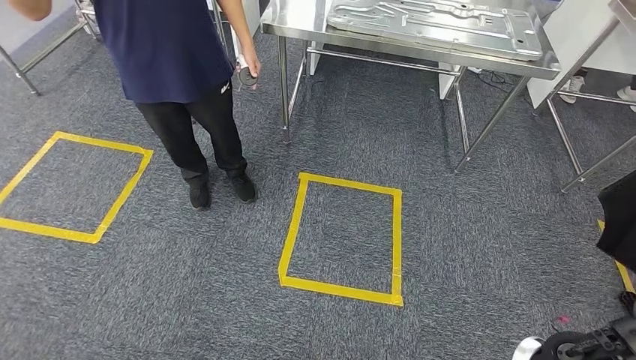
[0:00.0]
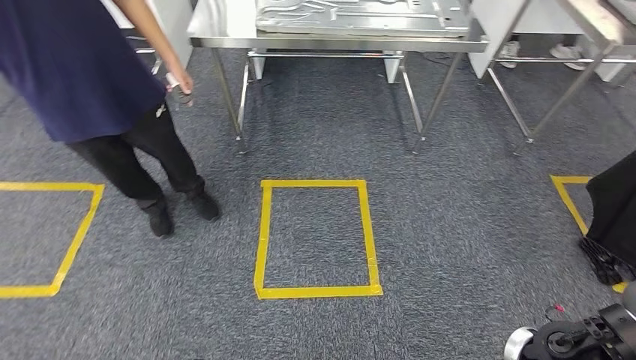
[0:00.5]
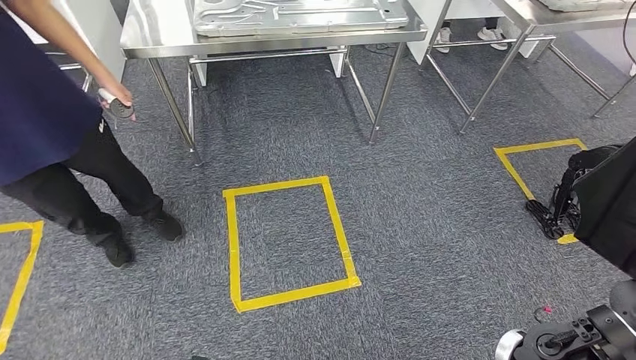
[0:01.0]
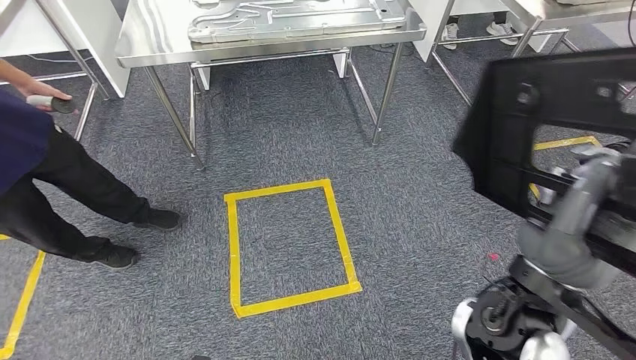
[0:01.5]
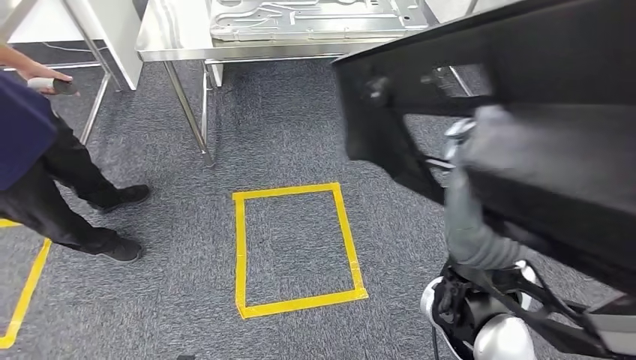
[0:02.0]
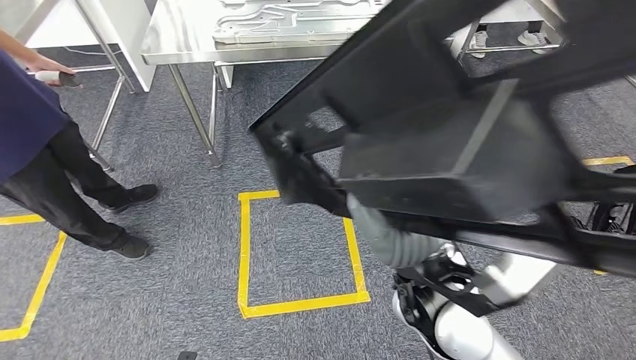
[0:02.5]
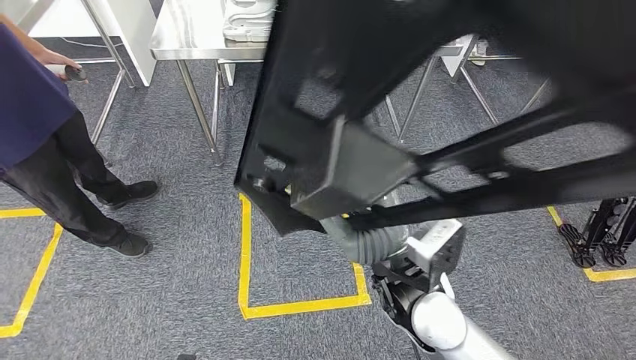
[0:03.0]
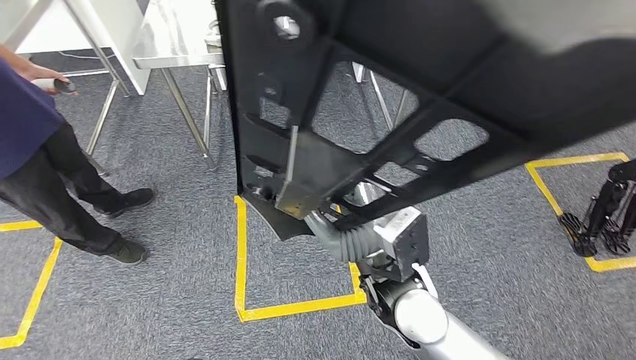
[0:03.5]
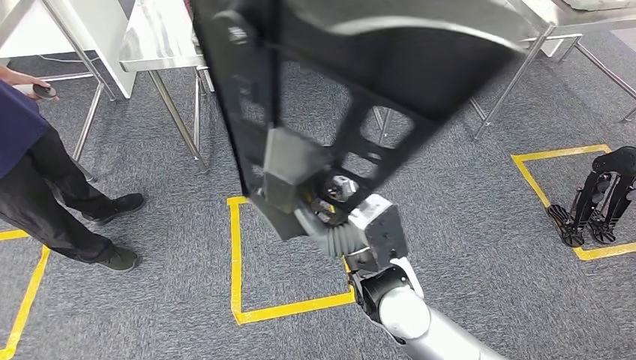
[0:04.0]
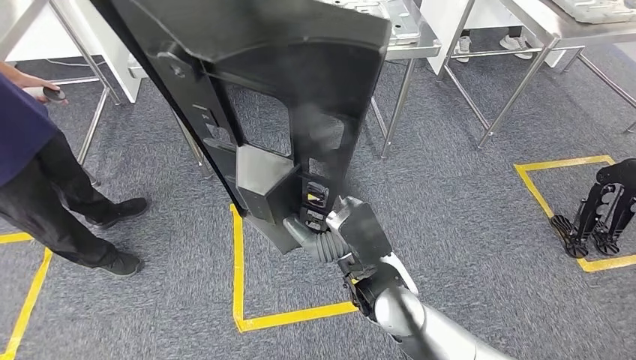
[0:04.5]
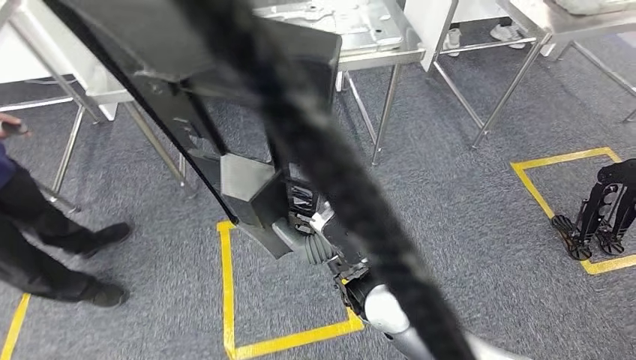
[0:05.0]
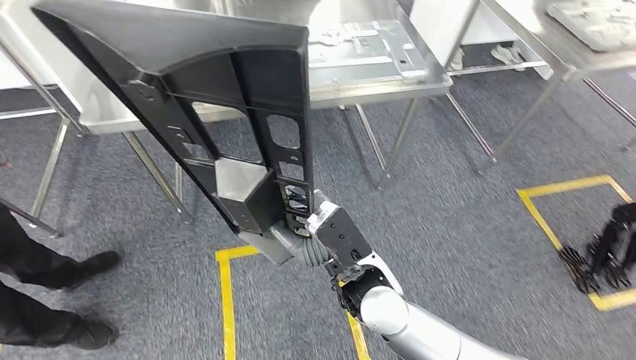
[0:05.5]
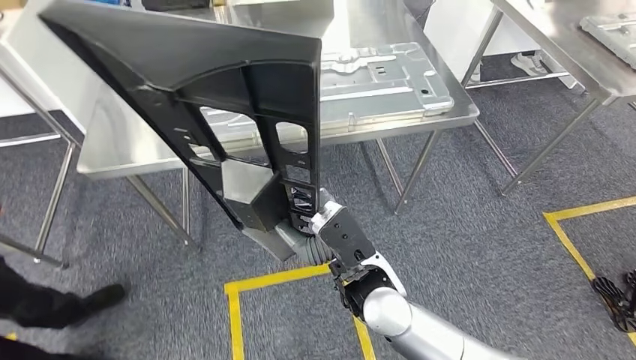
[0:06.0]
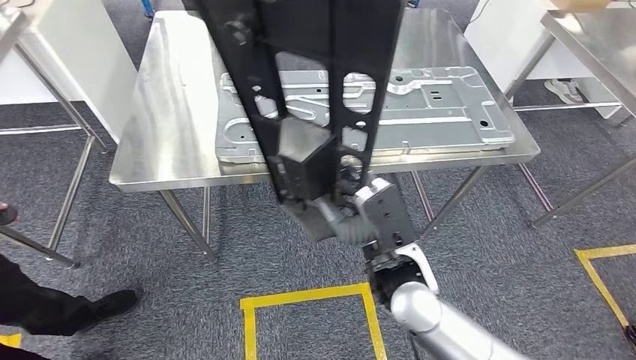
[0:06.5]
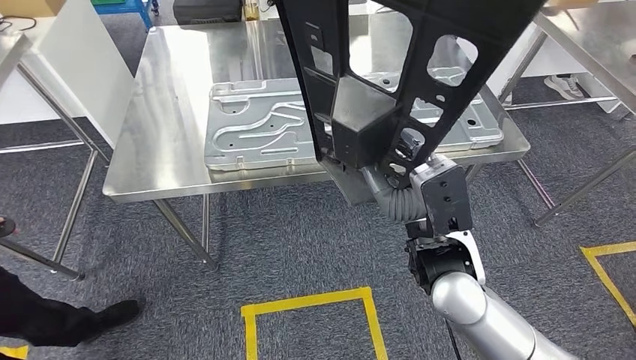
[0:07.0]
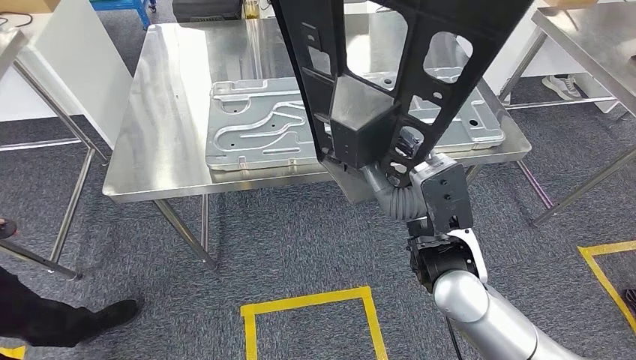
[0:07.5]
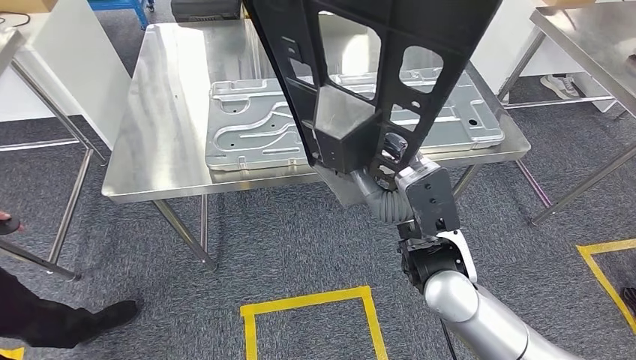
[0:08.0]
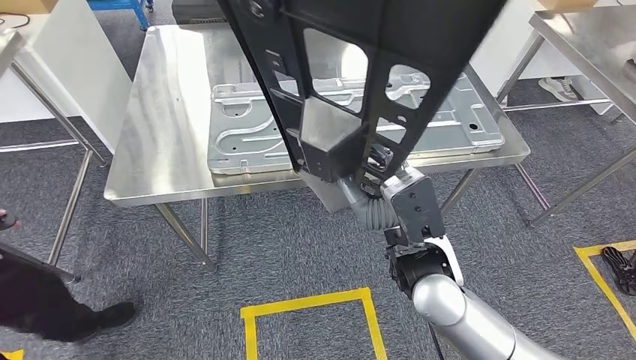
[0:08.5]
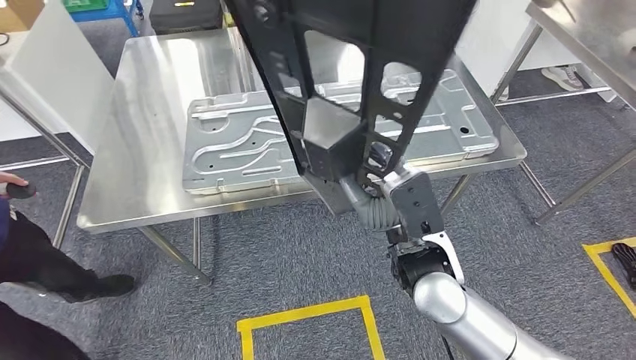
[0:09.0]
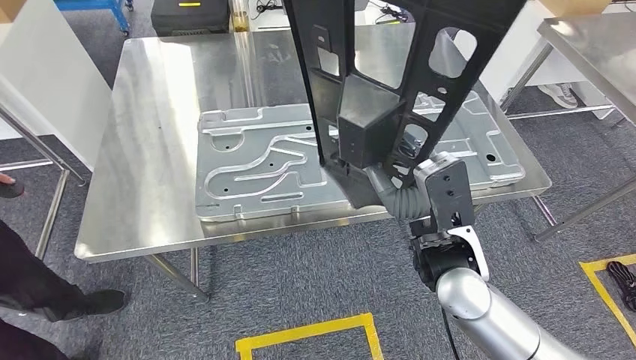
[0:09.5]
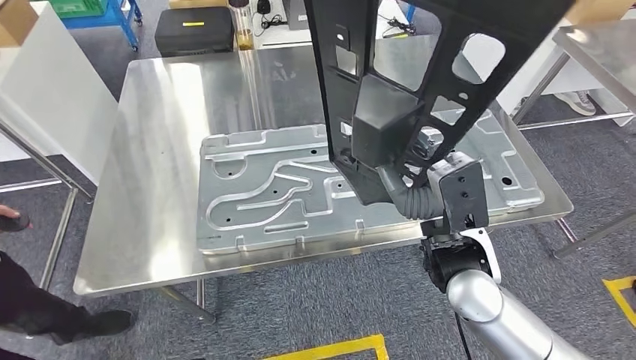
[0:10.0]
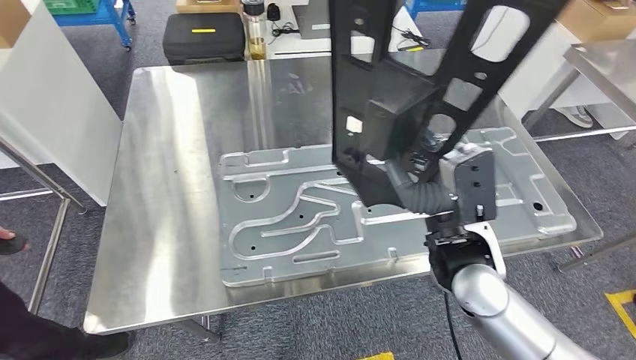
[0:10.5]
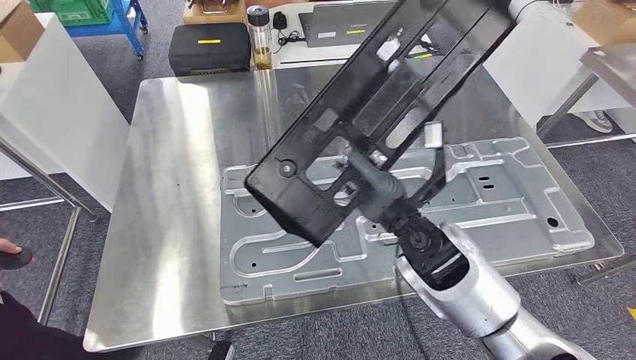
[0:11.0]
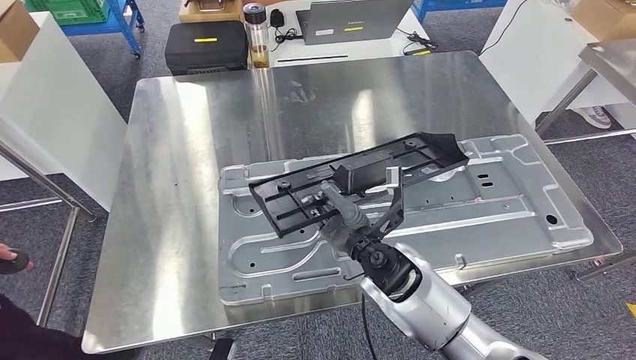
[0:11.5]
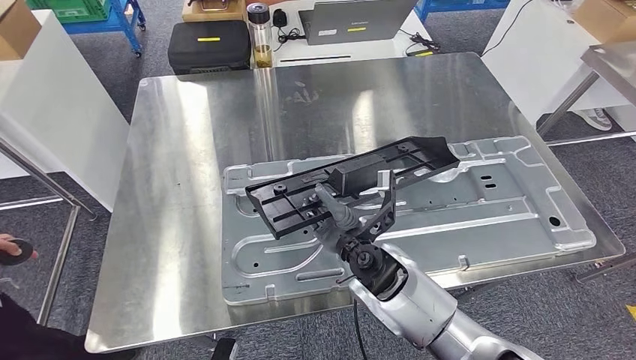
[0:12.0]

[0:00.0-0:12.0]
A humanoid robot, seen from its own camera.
Step, 0:00.0 to 0:07.0: Move the large parts to the workbench.

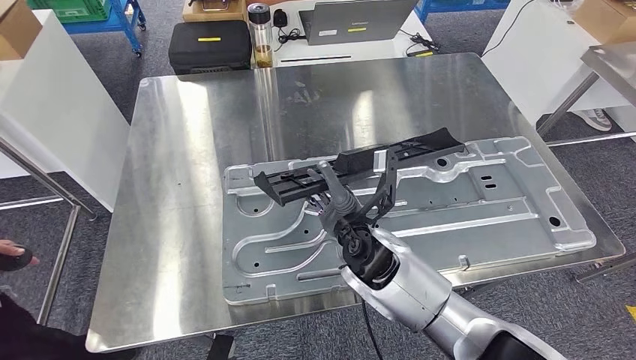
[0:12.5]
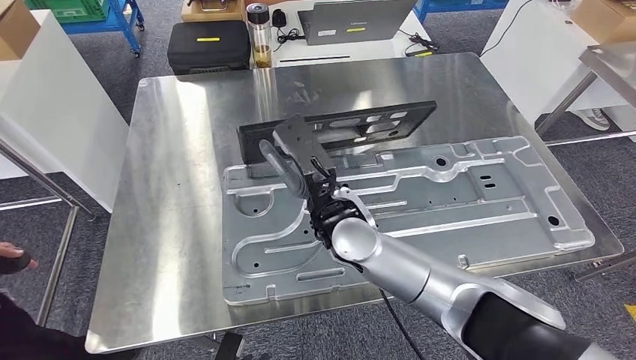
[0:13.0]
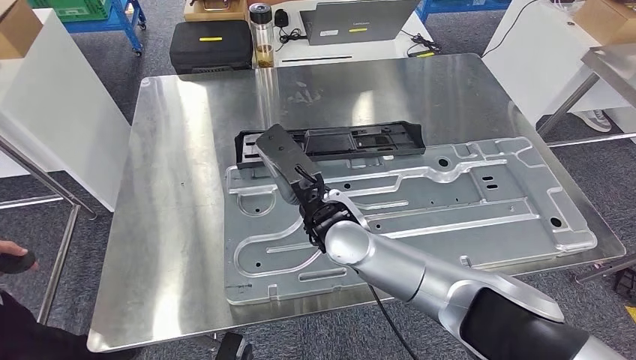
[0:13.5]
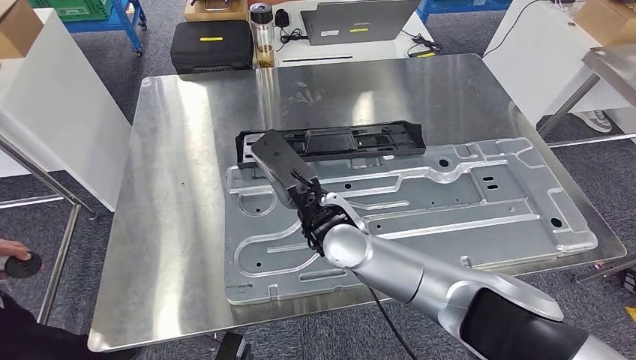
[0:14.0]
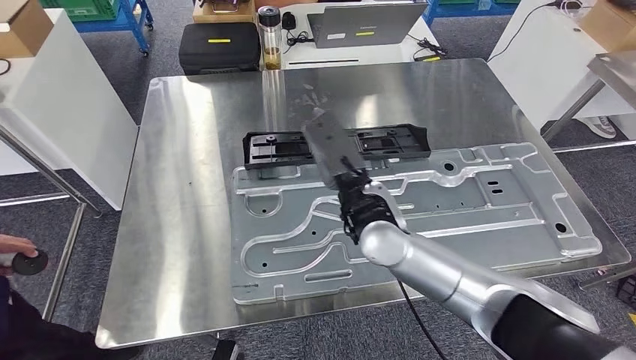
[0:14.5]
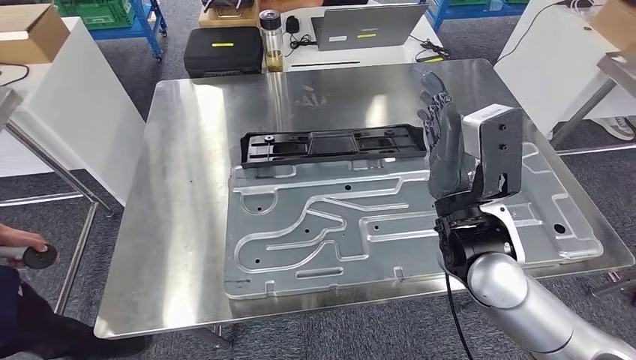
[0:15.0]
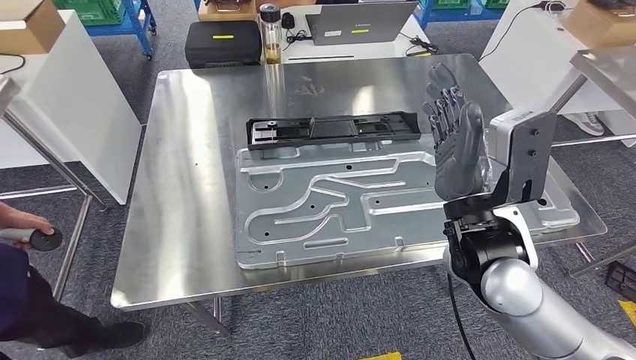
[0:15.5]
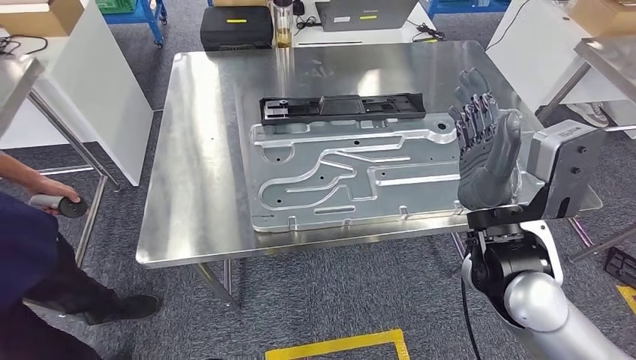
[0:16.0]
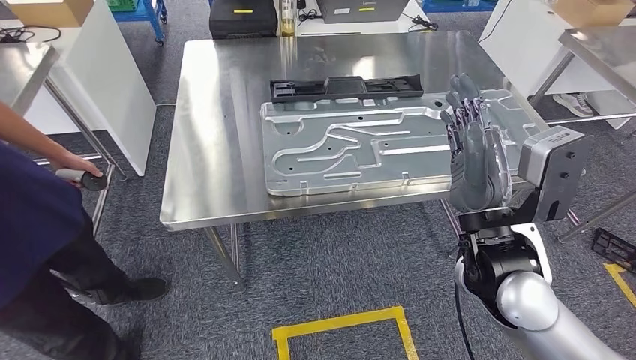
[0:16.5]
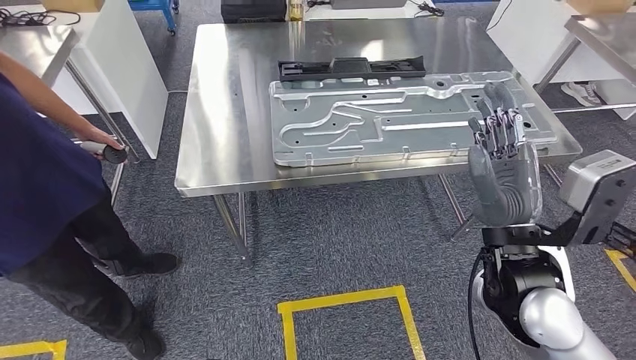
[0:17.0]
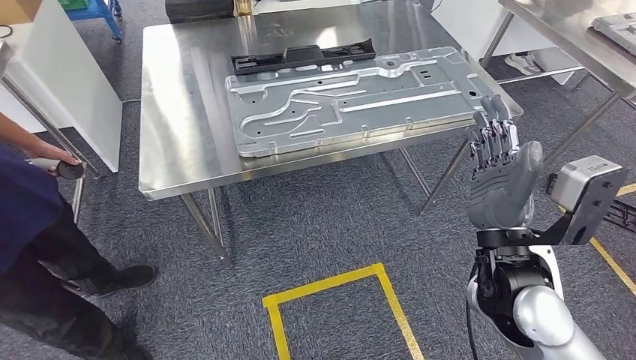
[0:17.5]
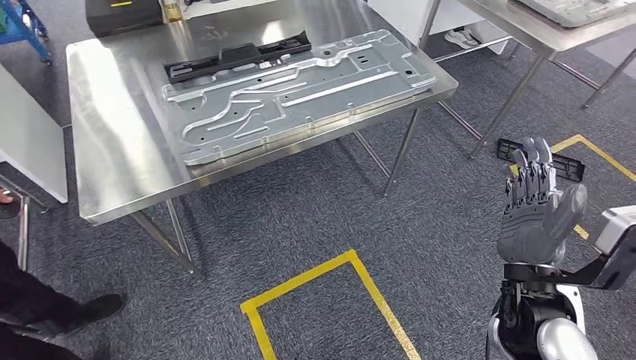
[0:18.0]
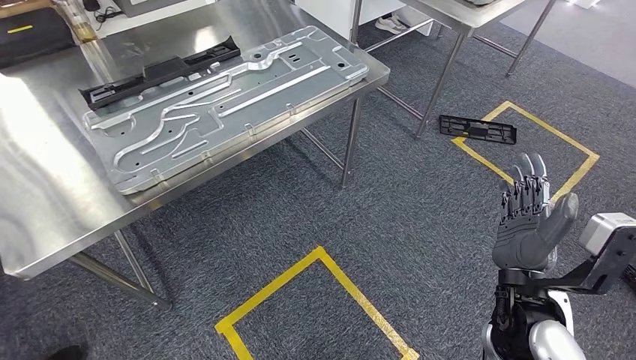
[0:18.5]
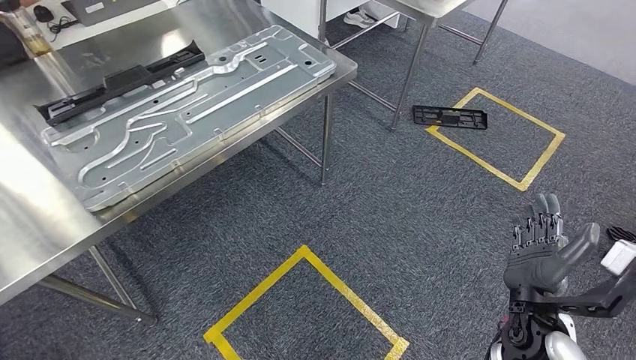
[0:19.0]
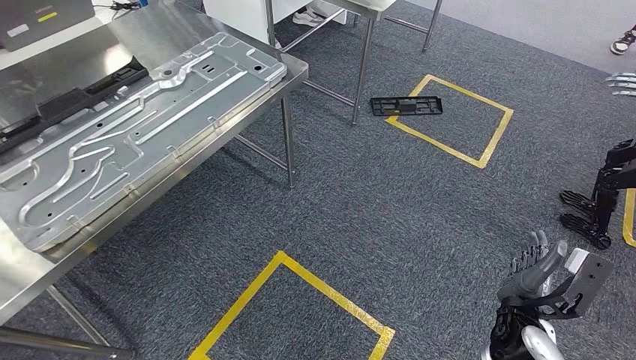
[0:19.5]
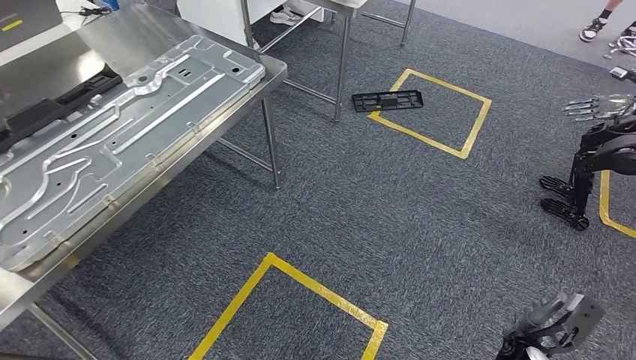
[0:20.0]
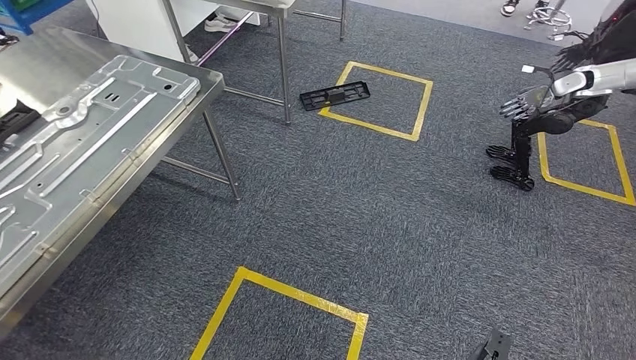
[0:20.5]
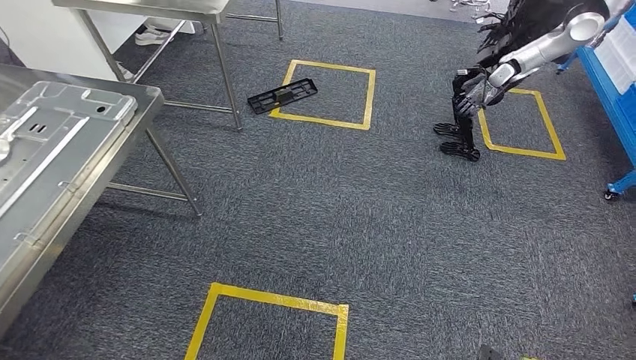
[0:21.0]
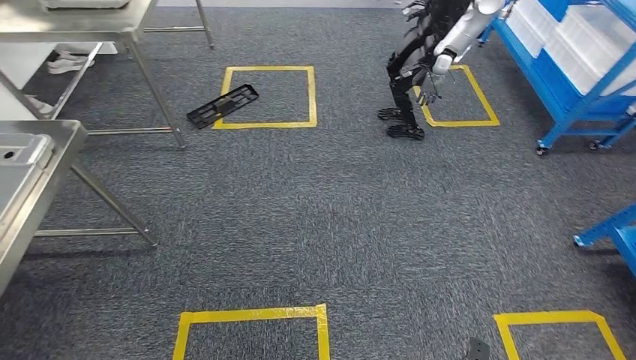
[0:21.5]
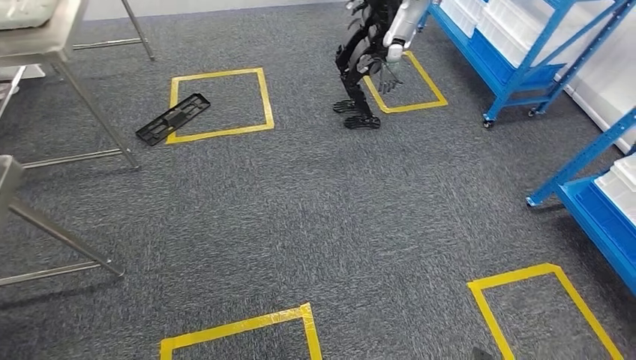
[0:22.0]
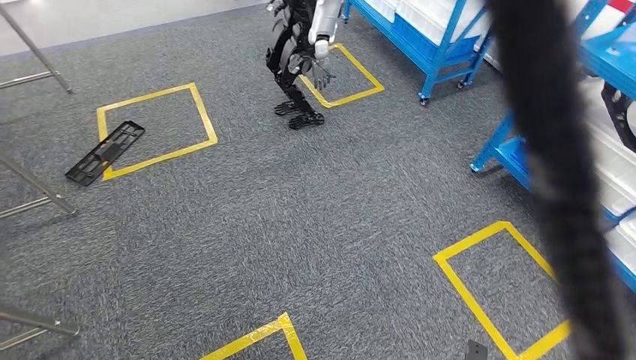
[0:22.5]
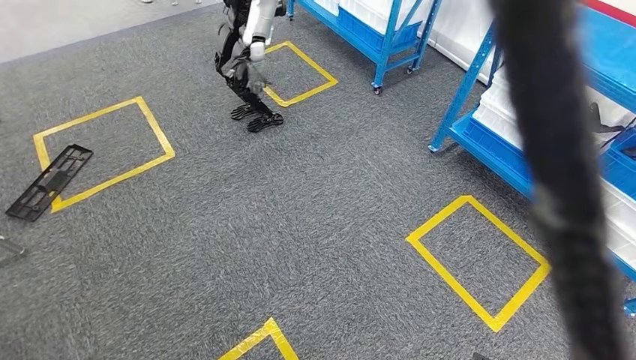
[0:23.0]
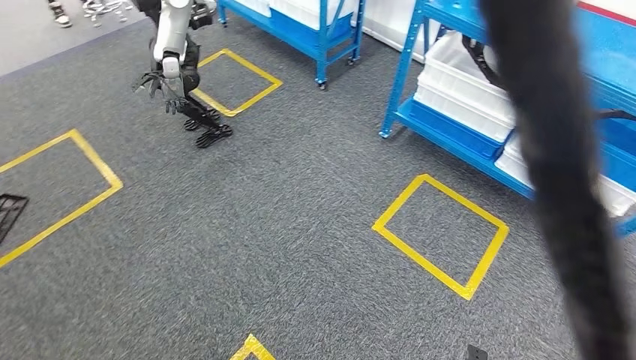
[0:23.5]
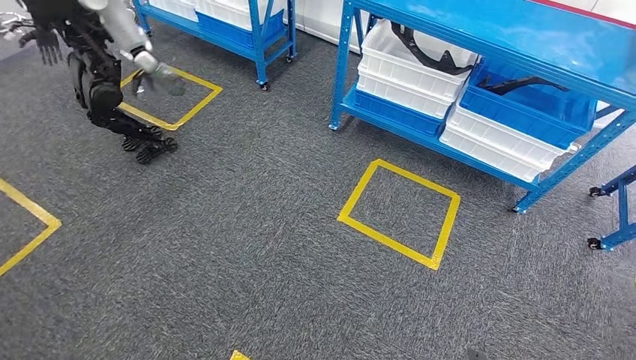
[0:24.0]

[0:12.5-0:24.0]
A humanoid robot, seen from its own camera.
Step, 0:12.5 to 0:17.0: Insert the large parts into the corresponding slots on the workbench.
